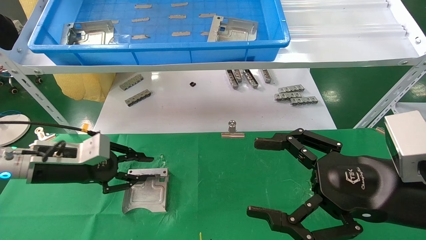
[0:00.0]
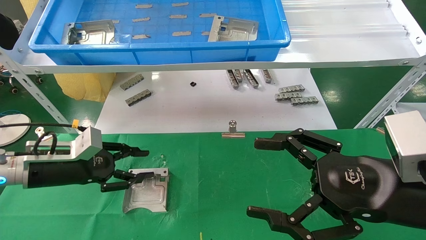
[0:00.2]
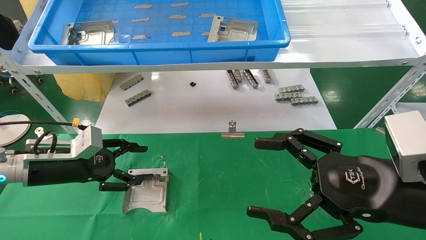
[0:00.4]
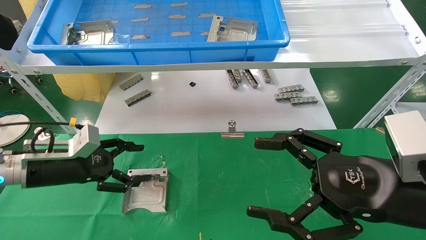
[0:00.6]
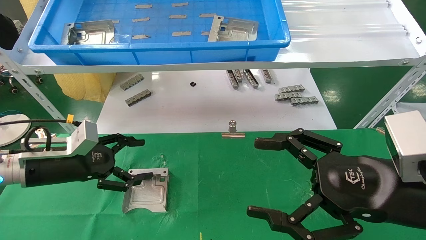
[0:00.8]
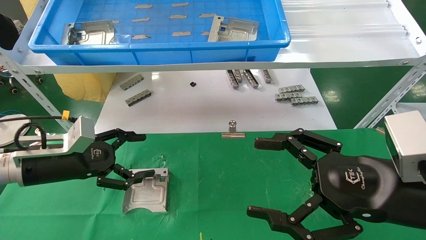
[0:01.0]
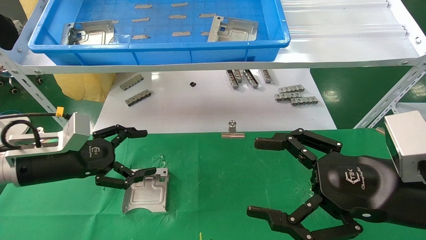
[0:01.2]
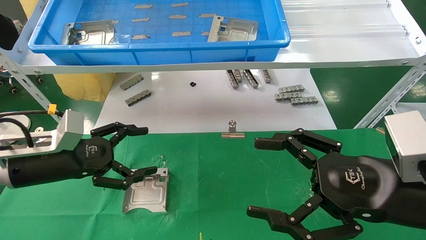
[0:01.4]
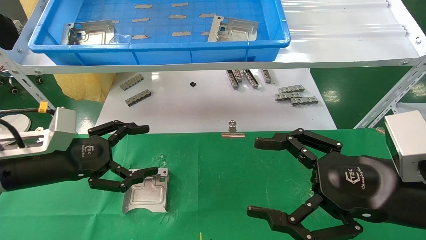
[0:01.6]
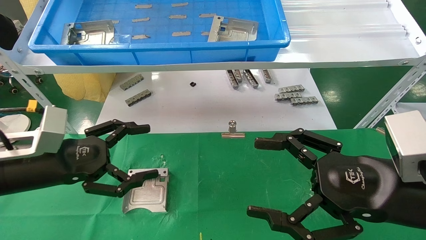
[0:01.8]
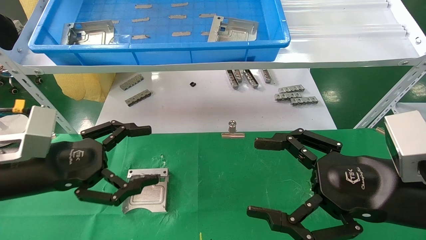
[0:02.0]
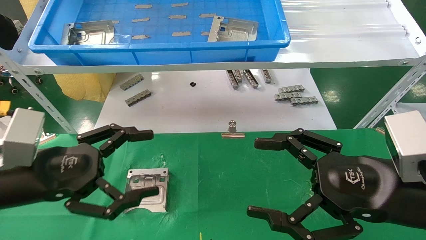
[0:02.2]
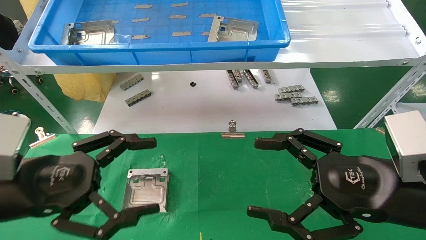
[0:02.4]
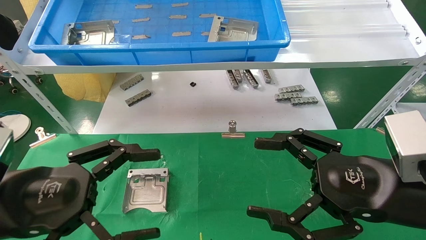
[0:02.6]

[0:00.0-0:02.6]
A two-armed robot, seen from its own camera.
Task of the whole recording: use the mechanical arm to pick up the parts and place them on the table.
0:00.0 to 0:01.2: The left gripper opens.
0:01.2 to 0:02.6: The left gripper travels backward by about 15 cm.

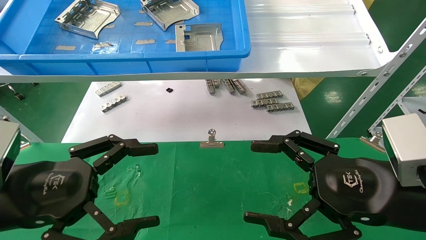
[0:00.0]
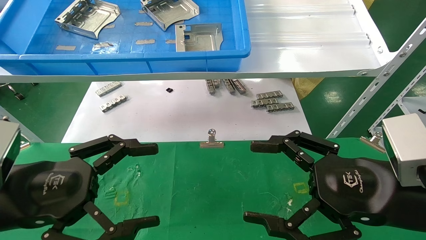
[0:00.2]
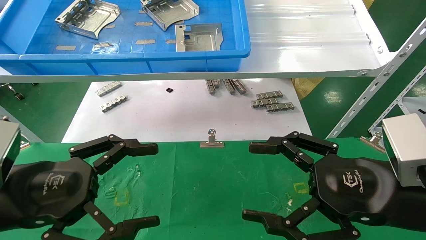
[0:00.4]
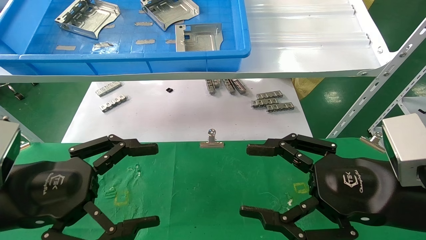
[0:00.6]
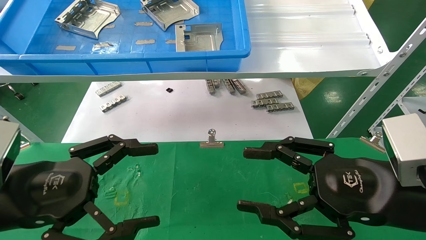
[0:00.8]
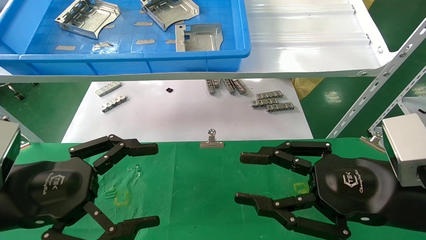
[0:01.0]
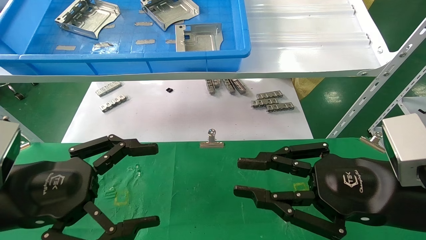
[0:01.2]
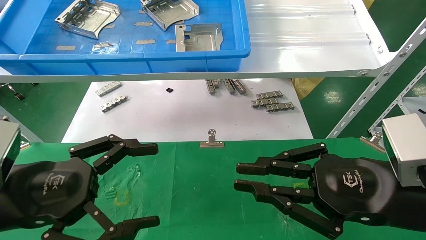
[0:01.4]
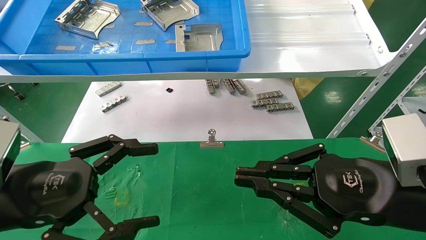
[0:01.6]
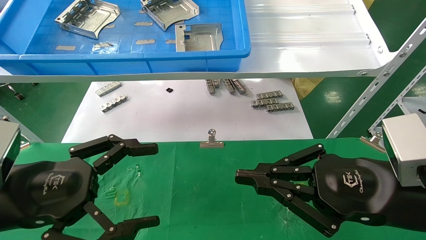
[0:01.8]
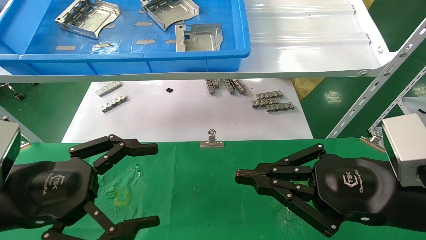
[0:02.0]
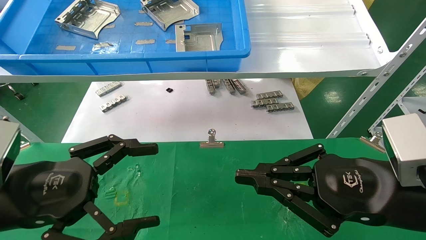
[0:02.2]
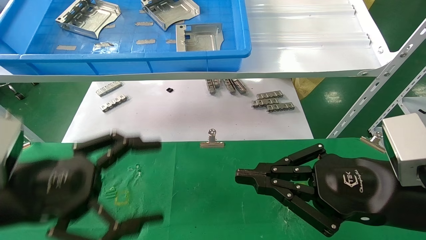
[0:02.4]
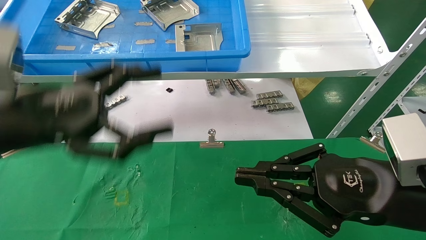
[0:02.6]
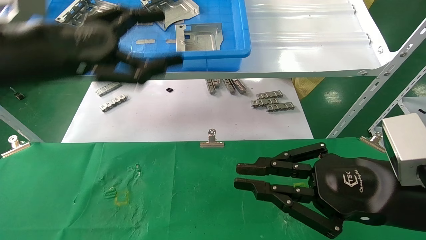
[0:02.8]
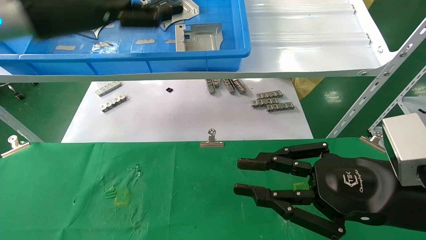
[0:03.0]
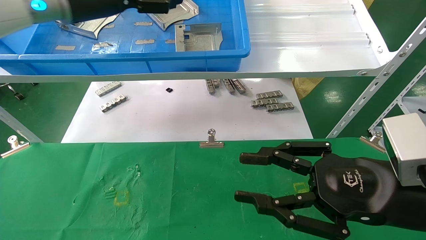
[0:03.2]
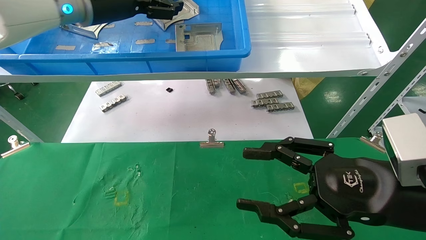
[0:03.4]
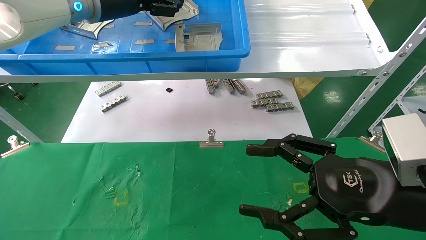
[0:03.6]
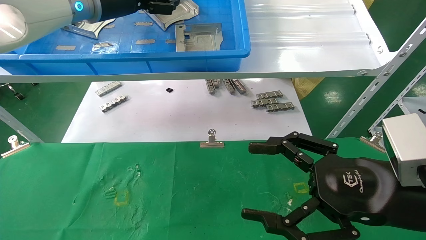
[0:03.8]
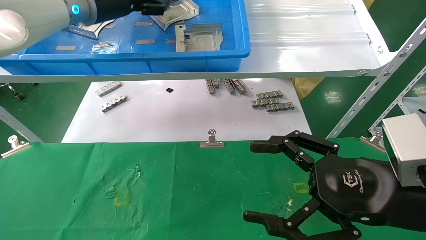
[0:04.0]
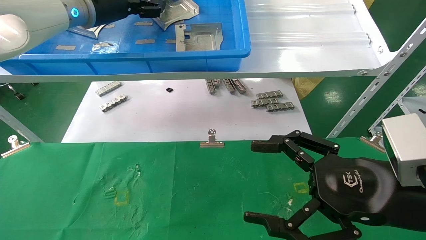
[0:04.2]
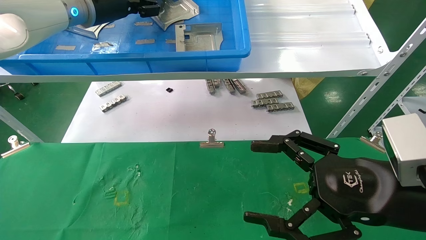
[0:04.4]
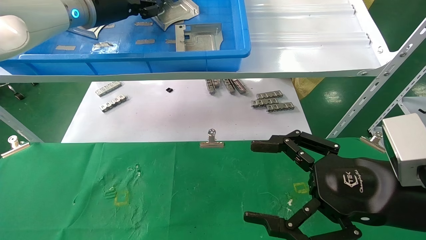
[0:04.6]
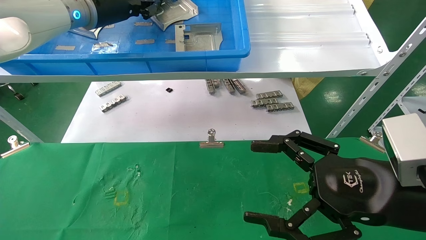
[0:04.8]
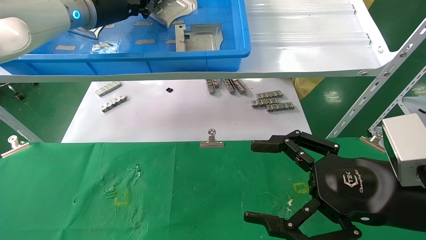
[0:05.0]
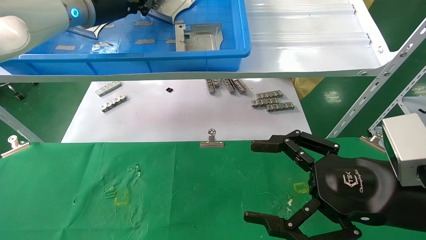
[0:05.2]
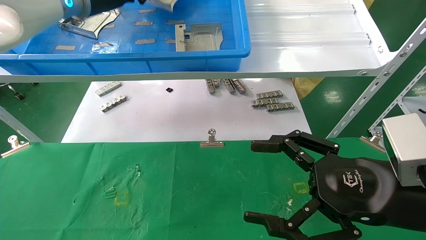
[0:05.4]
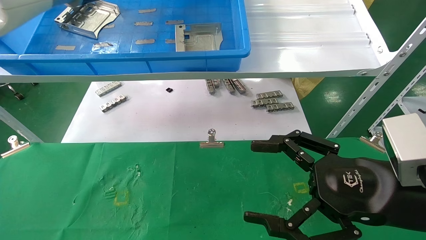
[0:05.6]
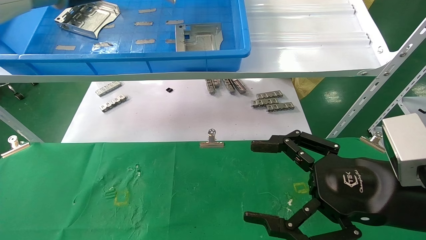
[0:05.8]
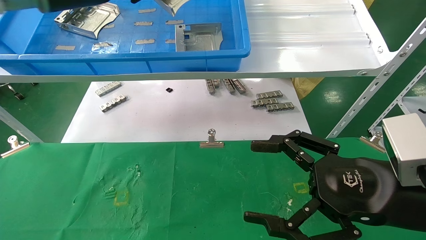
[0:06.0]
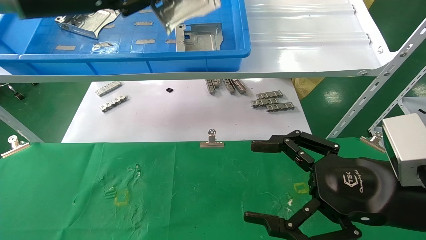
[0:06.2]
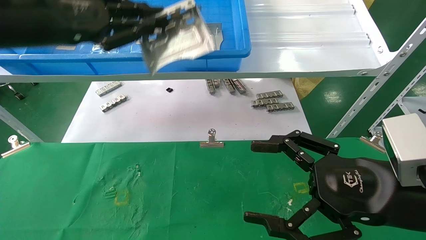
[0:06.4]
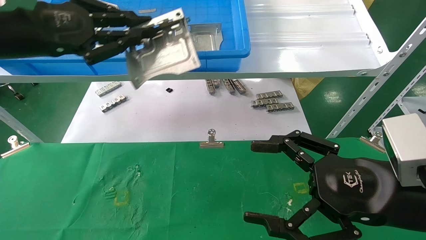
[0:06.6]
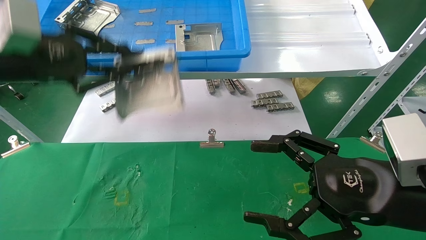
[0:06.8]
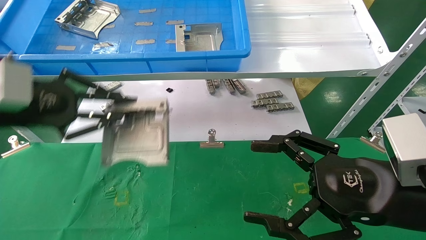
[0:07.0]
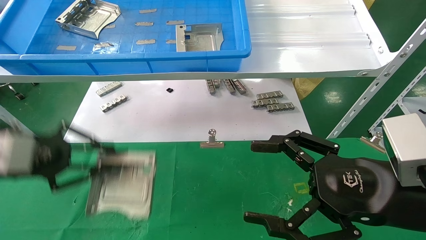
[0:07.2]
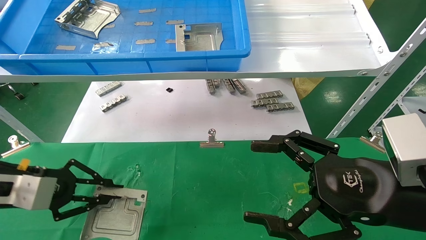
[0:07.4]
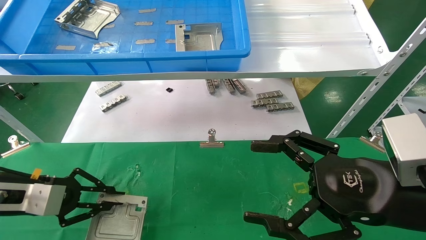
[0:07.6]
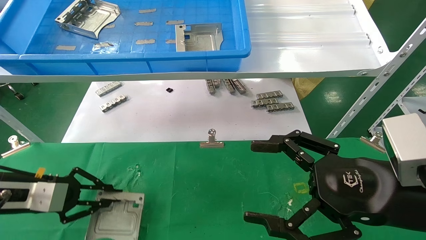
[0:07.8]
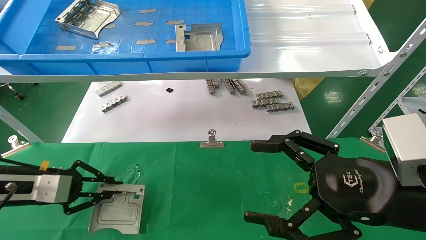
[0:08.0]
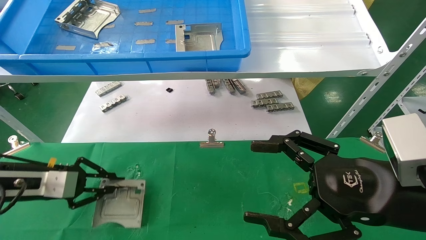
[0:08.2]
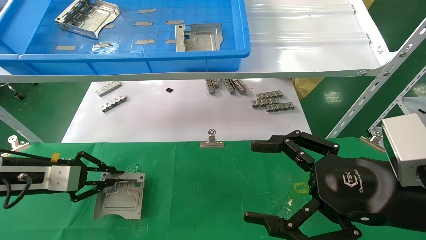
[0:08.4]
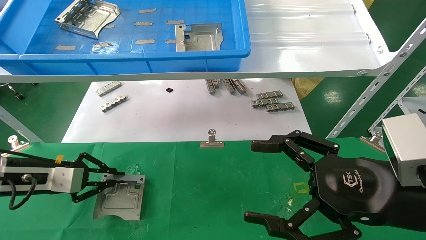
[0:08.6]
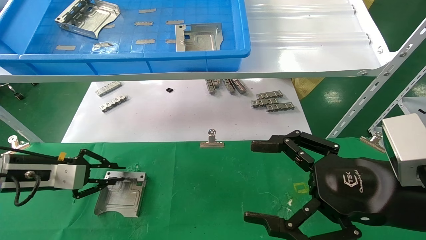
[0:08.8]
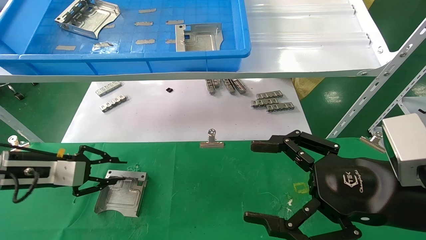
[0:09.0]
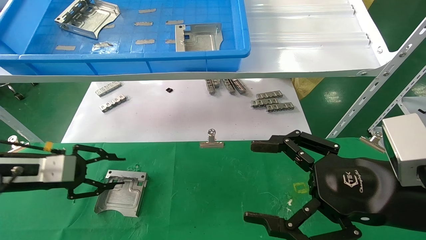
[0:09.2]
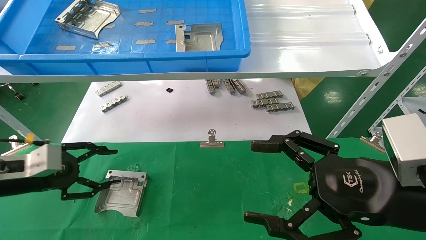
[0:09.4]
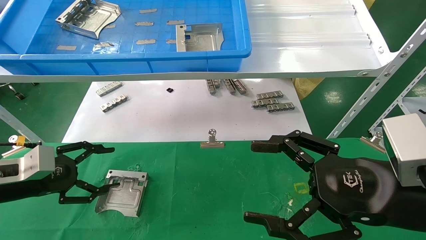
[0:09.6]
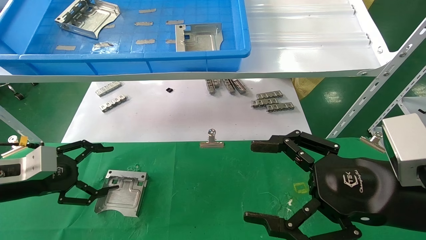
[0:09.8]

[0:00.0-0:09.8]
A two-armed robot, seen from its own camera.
Task of the whole recording: use the mechanical arm to pick up the parts and place them on the table.
Step, 0:01.4 to 0:05.4: Pick up the hard drive bracket from the feeding area.
Step, 0:05.6 to 0:08.8: Place the hard drive bracket into the box.
0:00.0 to 0:01.4: The right gripper closes its fingers.
0:01.4 to 0:02.8: The left gripper travels upward and forward by roughly 20 cm.
0:02.8 to 0:04.2: The left gripper travels forward and upward by roughly 15 cm. The right gripper opens.
0:04.2 to 0:05.6: The left gripper closes its fingers.
0:05.6 to 0:07.0: The left gripper shifts about 25 cm downward, backward and to the left.
0:07.0 to 0:08.4: The left gripper goes approximately 15 cm downward and forward.
0:08.4 to 0:09.8: The left gripper opens its fingers.

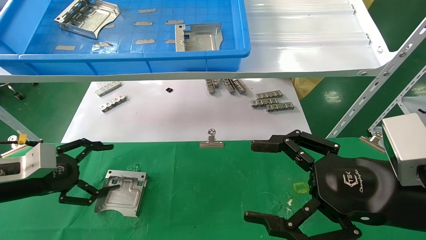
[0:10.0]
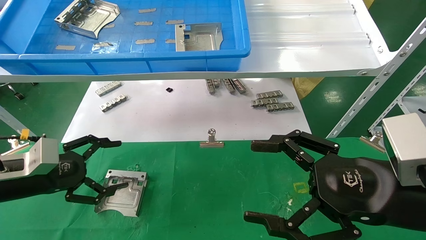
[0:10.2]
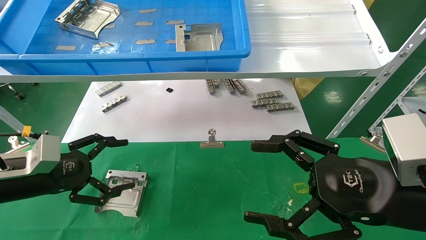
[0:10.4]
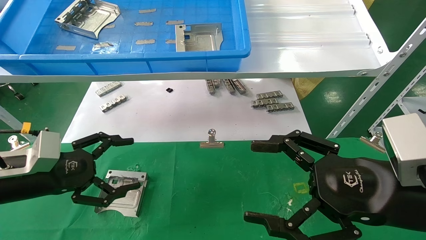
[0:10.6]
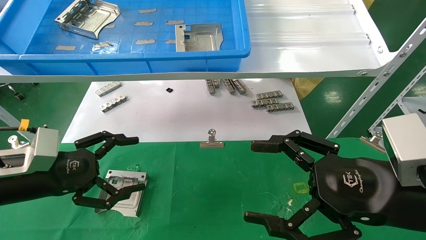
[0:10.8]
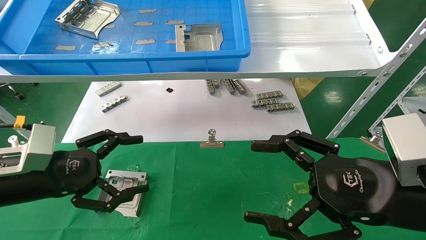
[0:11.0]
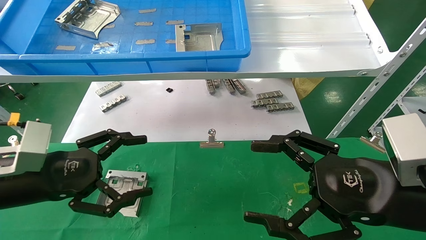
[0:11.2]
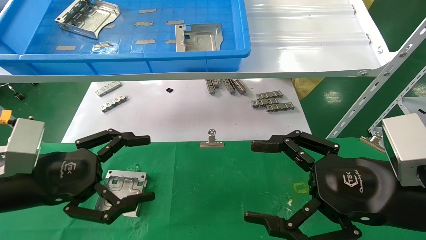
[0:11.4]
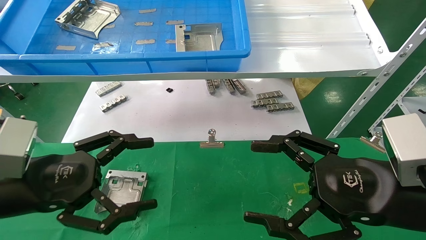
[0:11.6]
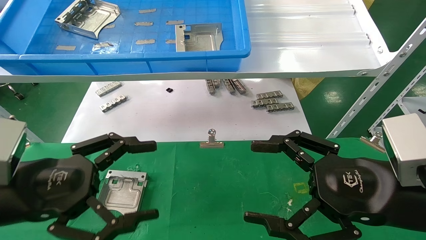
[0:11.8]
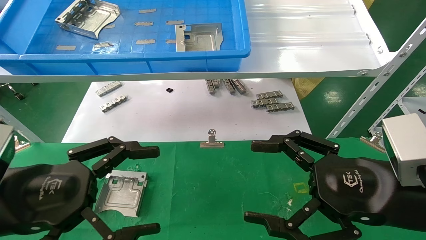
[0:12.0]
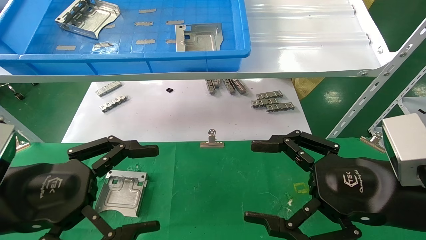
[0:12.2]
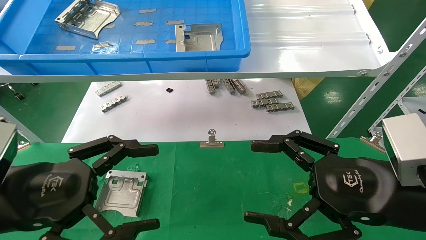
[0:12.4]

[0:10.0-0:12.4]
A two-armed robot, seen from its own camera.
Task of the whole recording: use the mechanical arm to pick up the parts and place them on the table.
0:10.0 to 0:11.2: The left gripper travels to the right and backward by approximately 10 cm.
0:11.2 to 0:12.4: The left gripper is displaced backward by approximately 5 cm.
